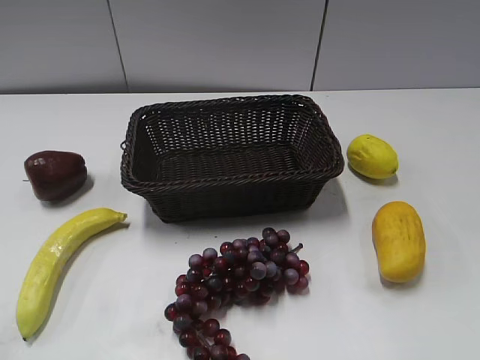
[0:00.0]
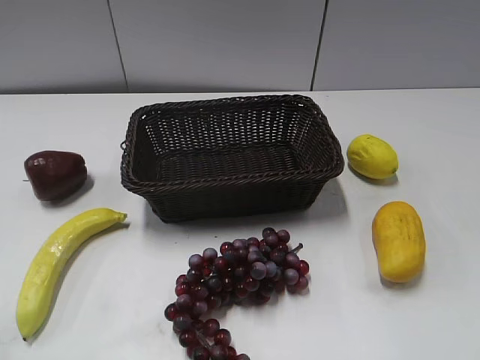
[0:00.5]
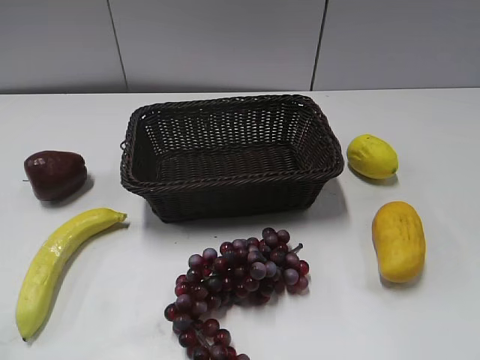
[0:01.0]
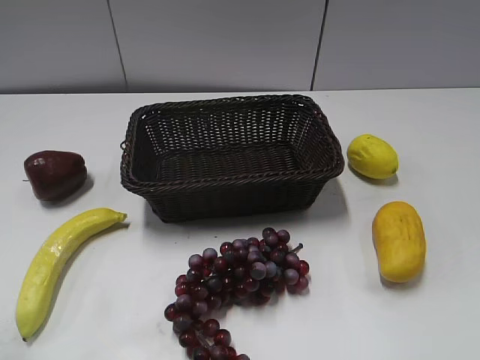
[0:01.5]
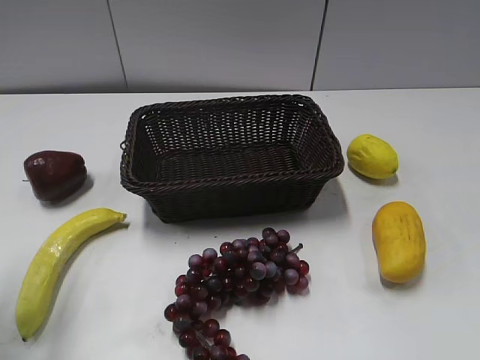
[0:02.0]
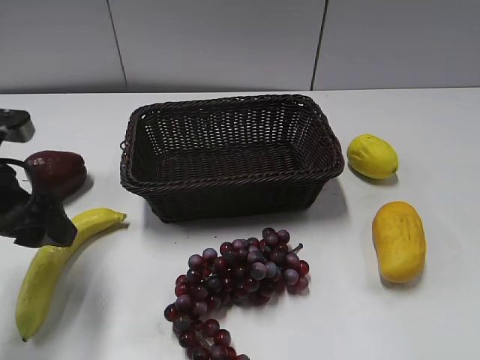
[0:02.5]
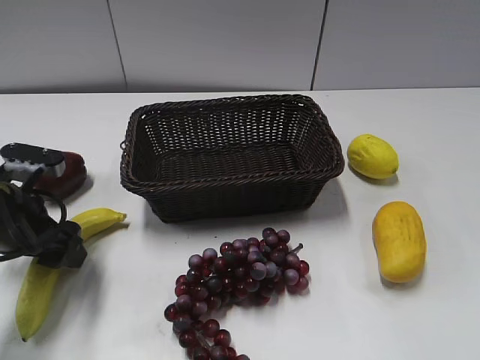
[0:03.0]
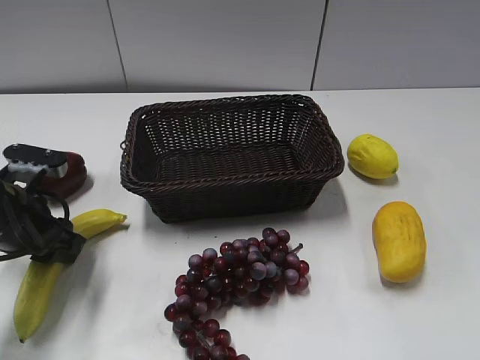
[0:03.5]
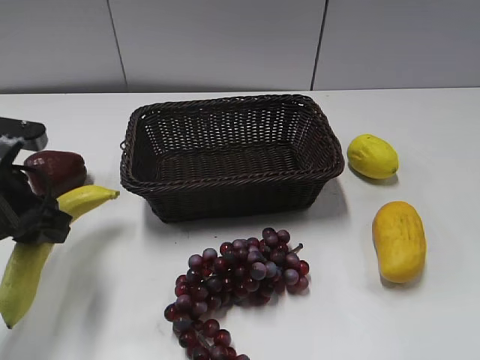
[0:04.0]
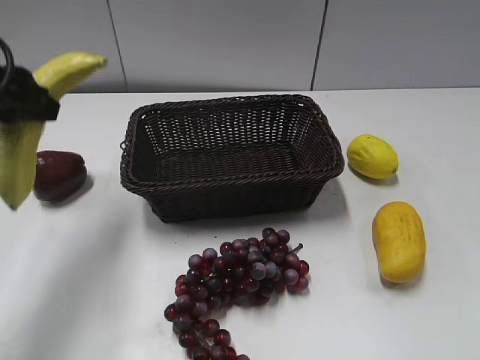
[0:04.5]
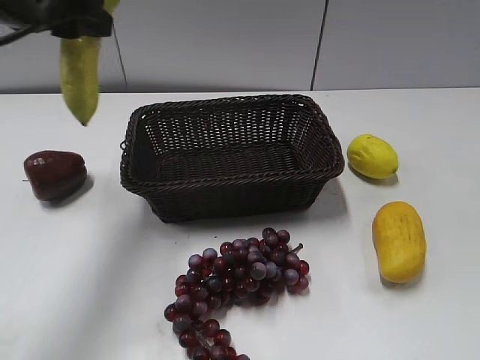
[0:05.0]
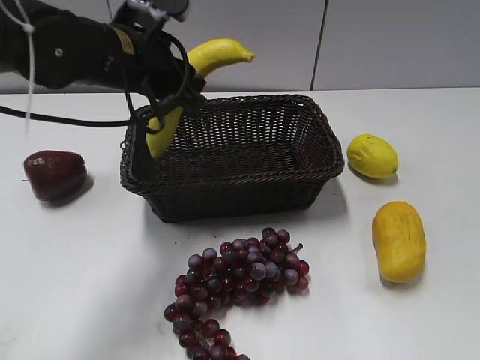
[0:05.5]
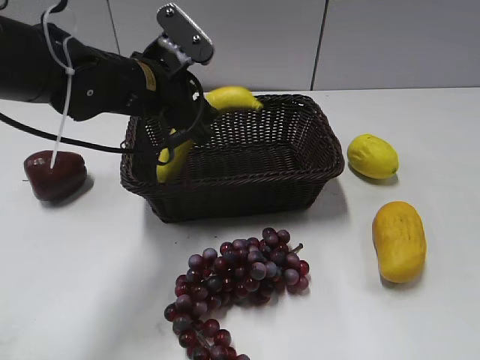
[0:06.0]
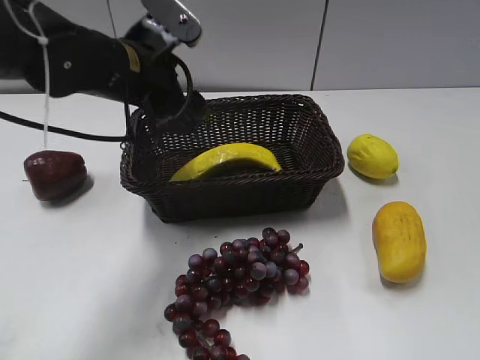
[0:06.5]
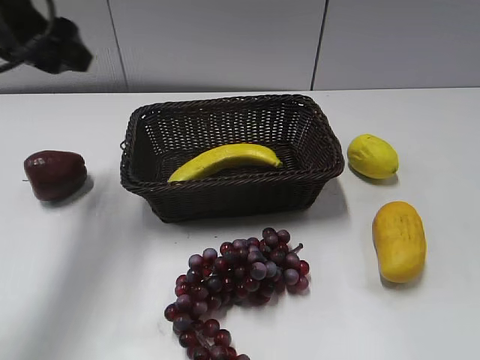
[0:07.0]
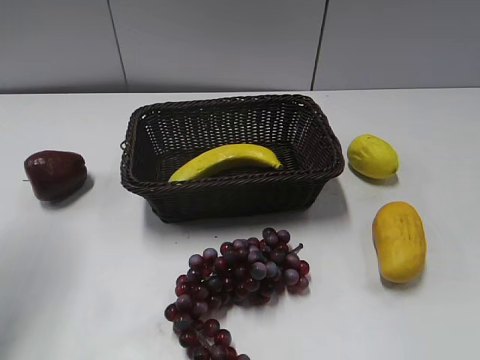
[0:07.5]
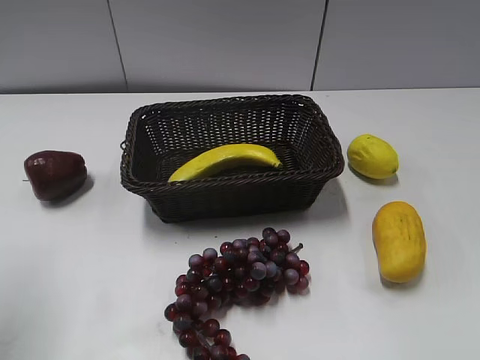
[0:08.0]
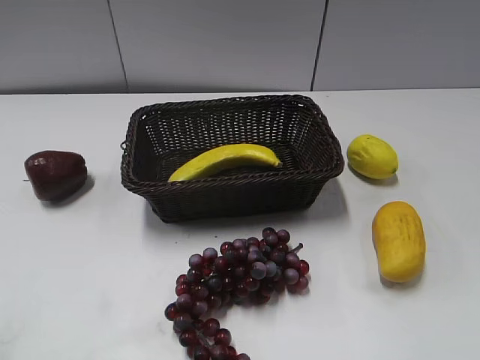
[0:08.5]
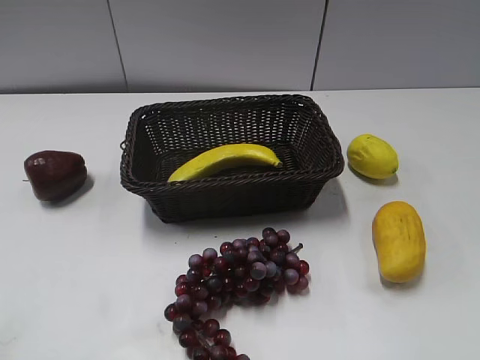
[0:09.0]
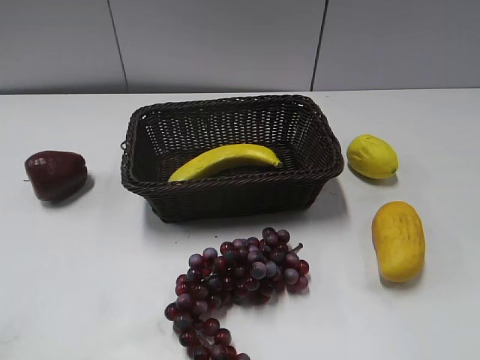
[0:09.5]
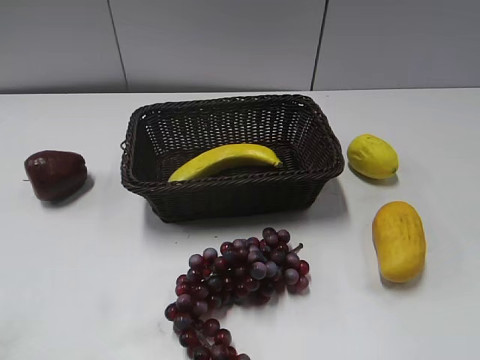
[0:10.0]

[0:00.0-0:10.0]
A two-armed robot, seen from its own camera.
Step, 0:02.0 to 0:03.5: Grasp the banana with left gripper.
Step, 0:04.0 to 0:06.0: Place the banana in the basket with left gripper.
0:02.0 to 0:04.0: The left gripper heads downward and forward, covering about 10 cm, and closes up.
0:04.0 to 0:06.0: The left gripper heads to the right and forward, covering some 20 cm, and opens its fingers.
0:06.0 to 0:08.0: The left gripper shifts roughly 30 cm to the left, backward and upward.
0:08.0 to 0:10.0: The left gripper moves backward, approximately 15 cm.
